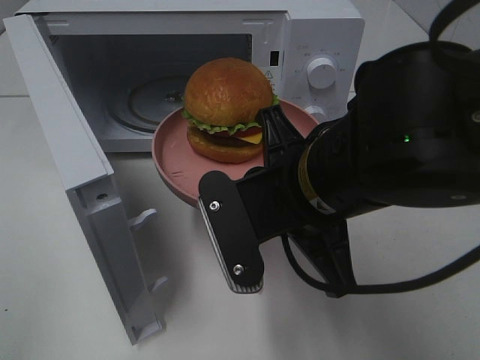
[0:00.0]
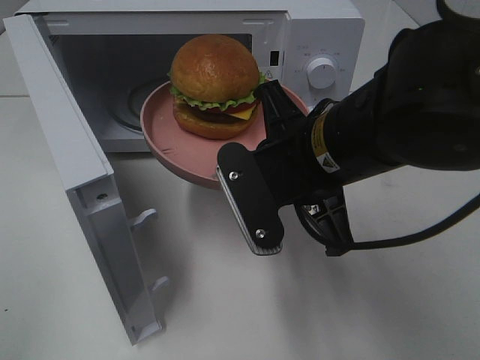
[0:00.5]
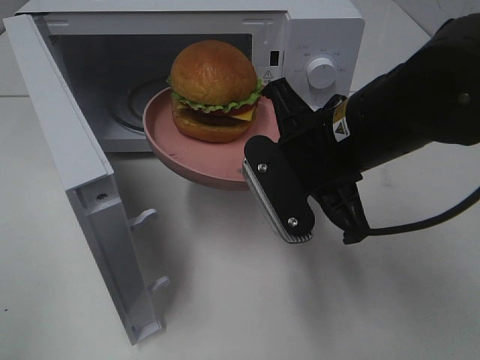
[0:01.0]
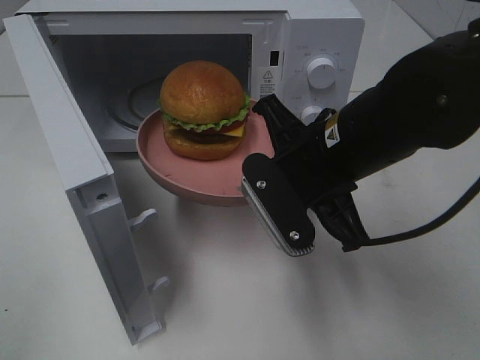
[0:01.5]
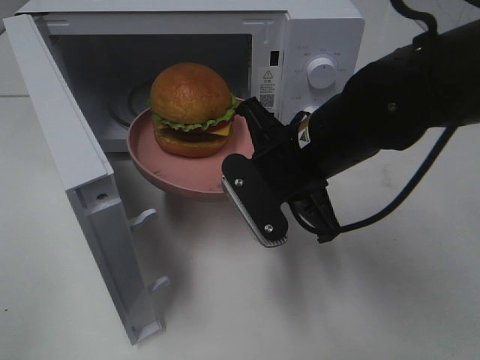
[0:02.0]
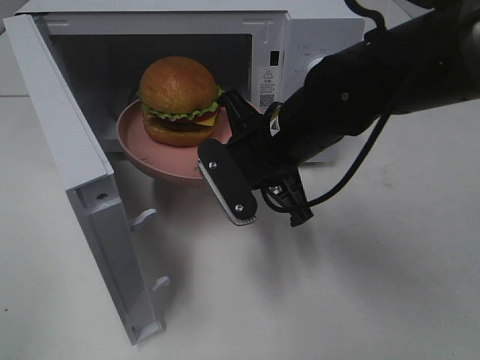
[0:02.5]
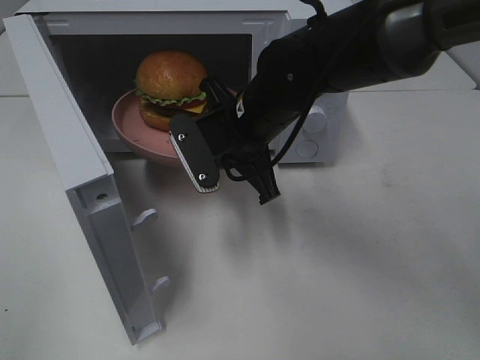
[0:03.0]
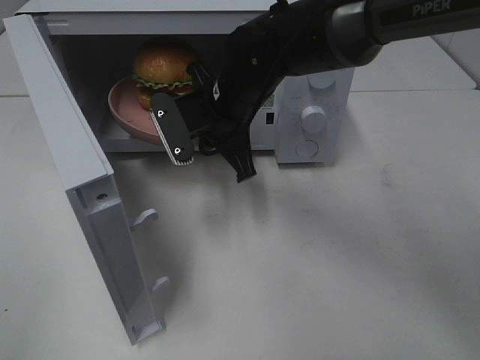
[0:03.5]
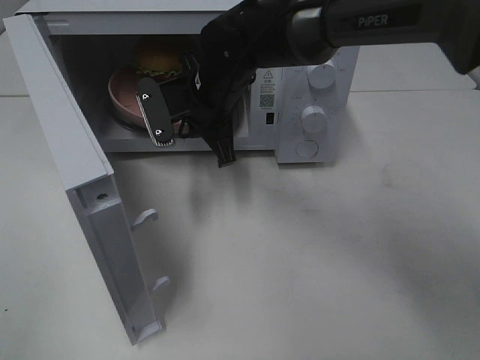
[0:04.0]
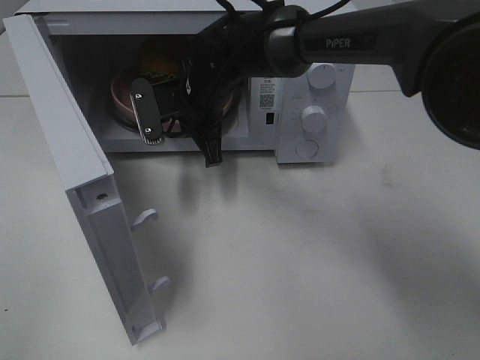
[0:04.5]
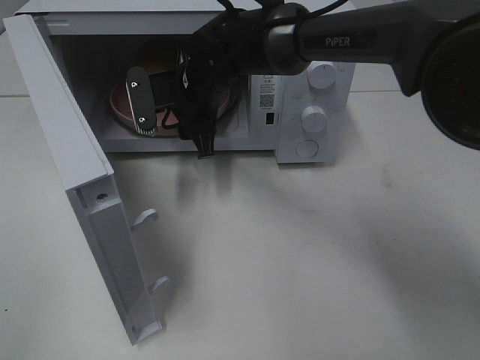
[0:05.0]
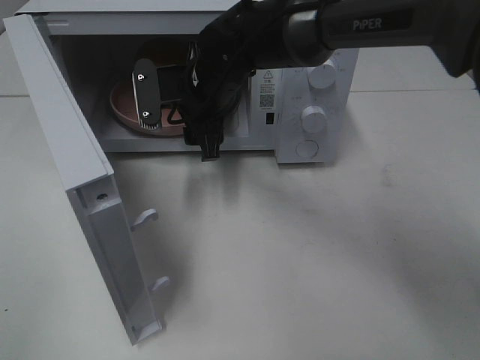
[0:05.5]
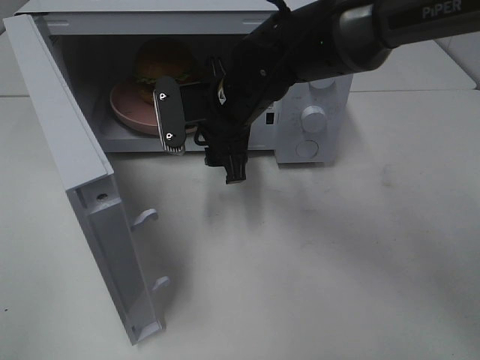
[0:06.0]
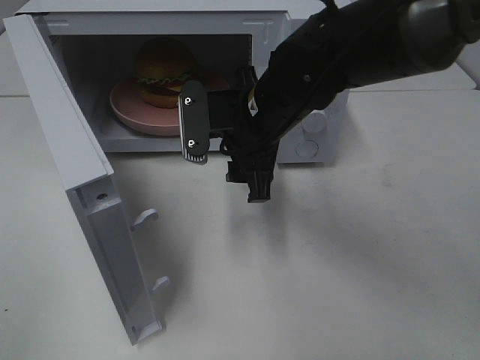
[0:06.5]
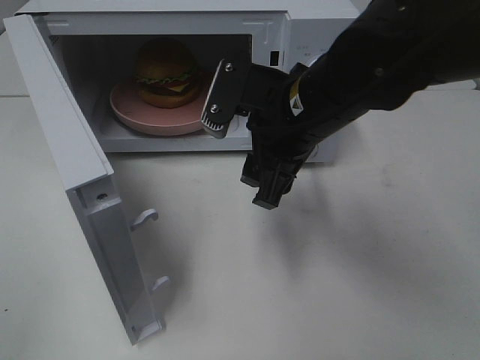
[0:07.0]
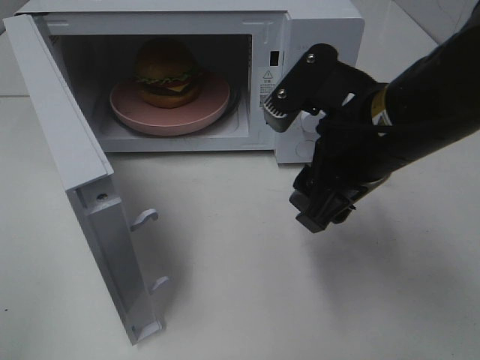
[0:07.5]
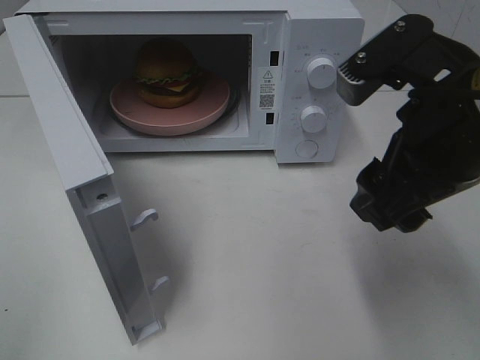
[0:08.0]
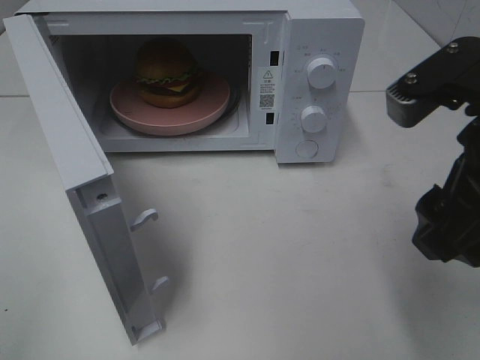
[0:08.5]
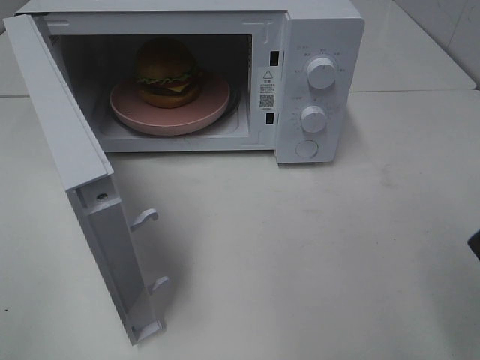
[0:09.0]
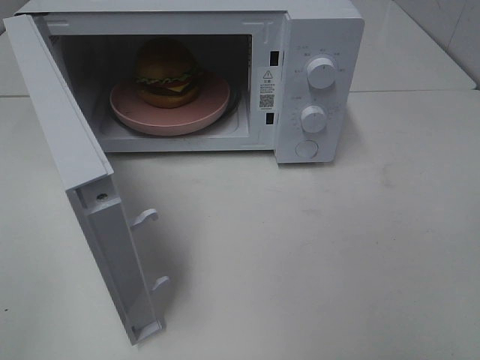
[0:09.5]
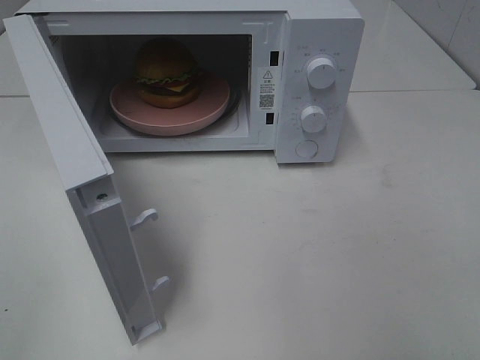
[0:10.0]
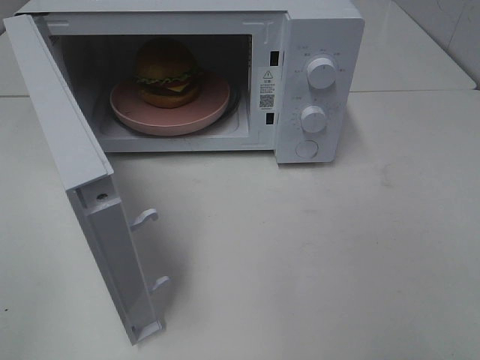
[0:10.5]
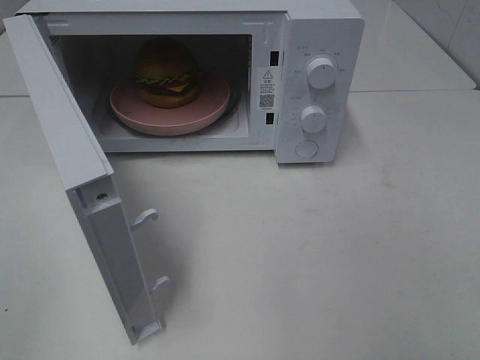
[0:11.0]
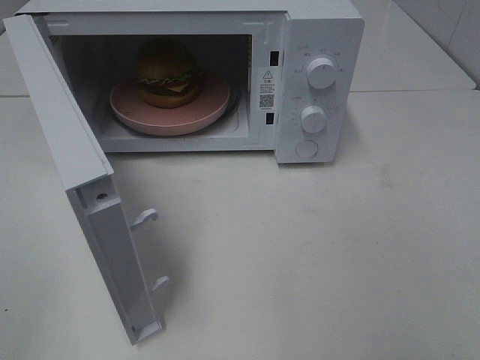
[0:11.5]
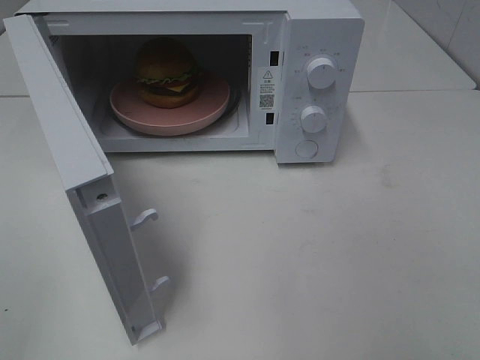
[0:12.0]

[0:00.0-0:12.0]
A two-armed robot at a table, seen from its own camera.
Task of the whole recording: Heat the burger.
Step, 0:00.0 to 0:05.0: Right hand: place the plate in the microwave.
0:00.0 to 0:02.0: The right gripper heads forward, covering some 10 cm.
0:02.0 to 0:04.0: The right gripper is displaced forward and to the left by approximately 15 cm.
0:04.0 to 0:06.0: The right gripper opens.
0:06.0 to 0:08.0: The right gripper travels backward, to the right and upward by roughly 25 cm.
0:08.0 to 0:10.0: The right gripper travels backward and to the right by roughly 20 cm.

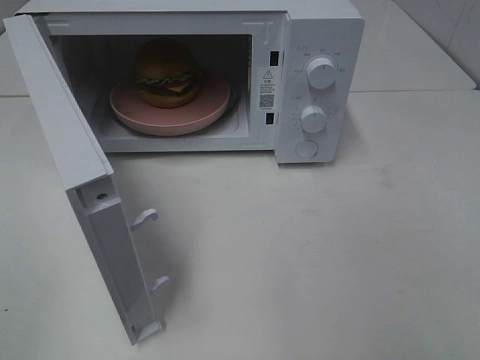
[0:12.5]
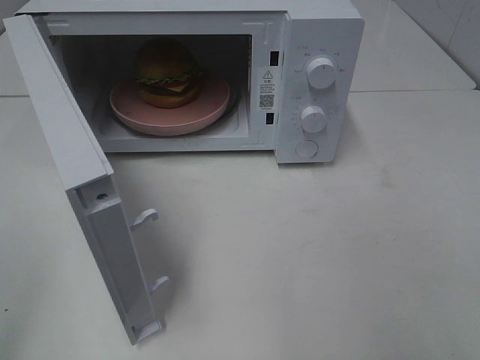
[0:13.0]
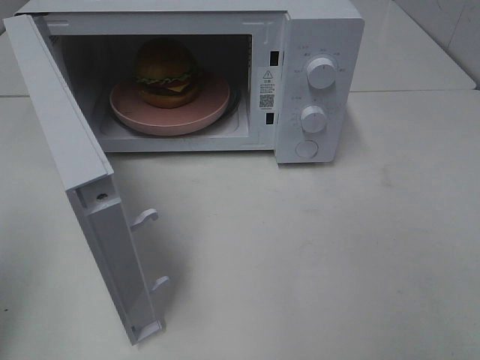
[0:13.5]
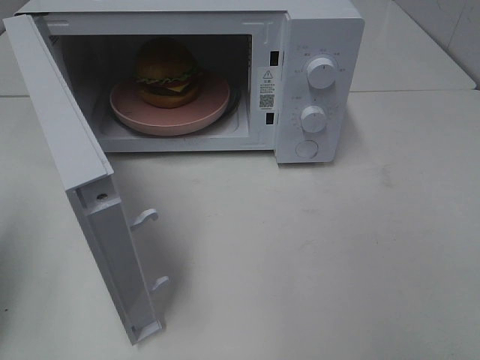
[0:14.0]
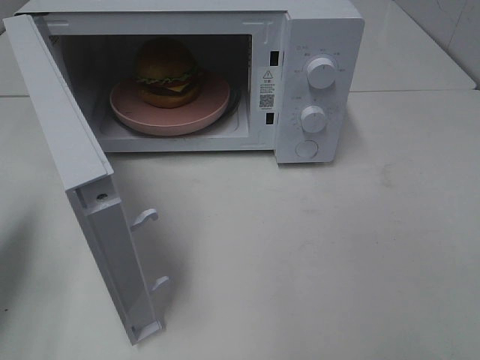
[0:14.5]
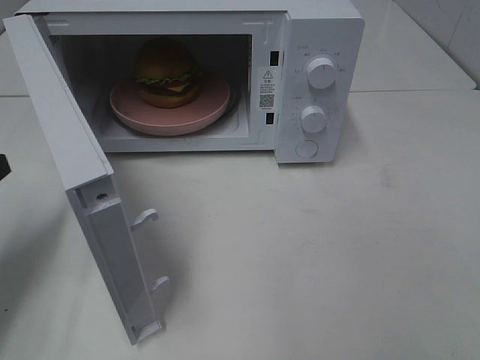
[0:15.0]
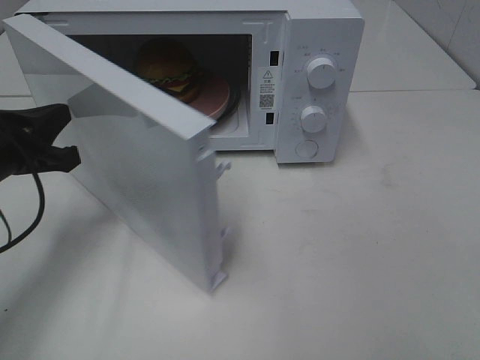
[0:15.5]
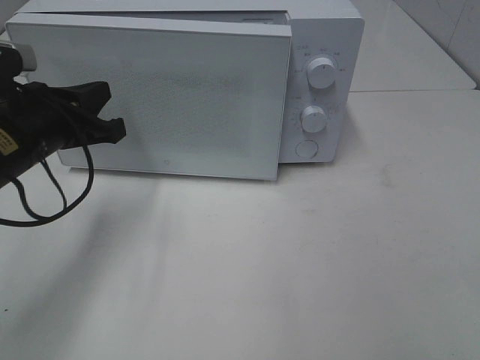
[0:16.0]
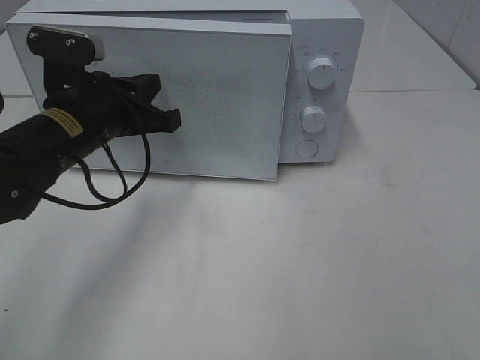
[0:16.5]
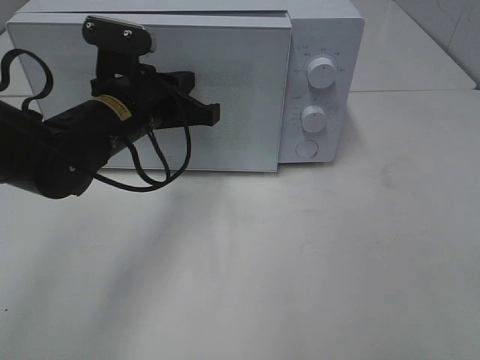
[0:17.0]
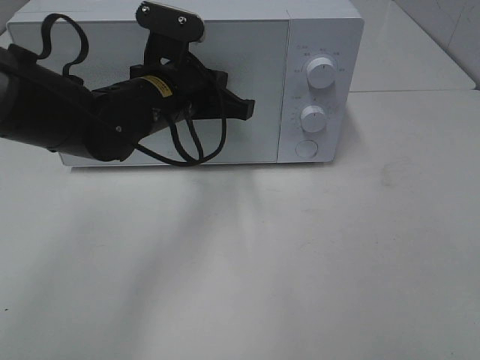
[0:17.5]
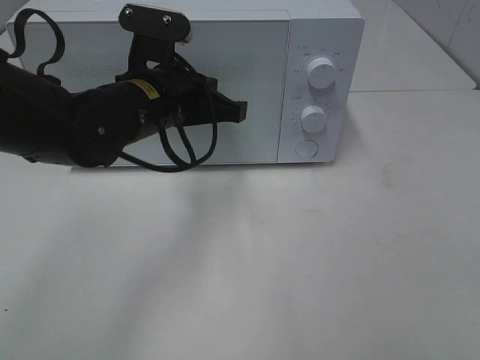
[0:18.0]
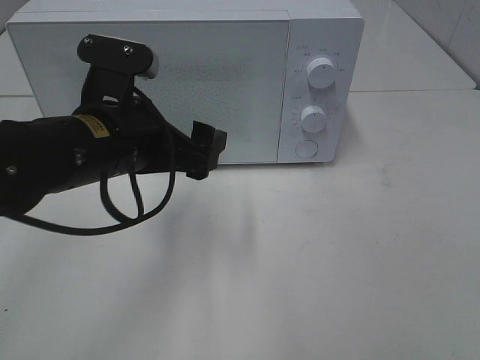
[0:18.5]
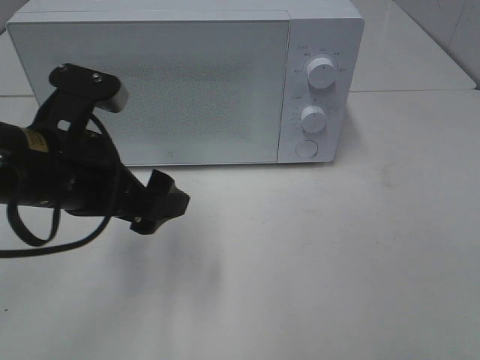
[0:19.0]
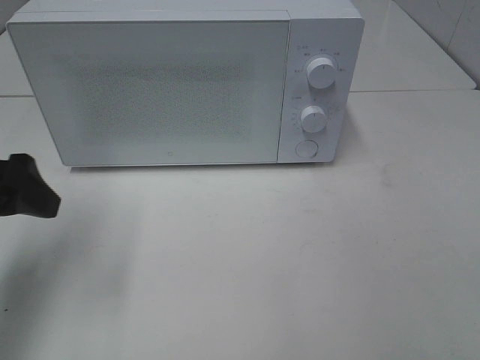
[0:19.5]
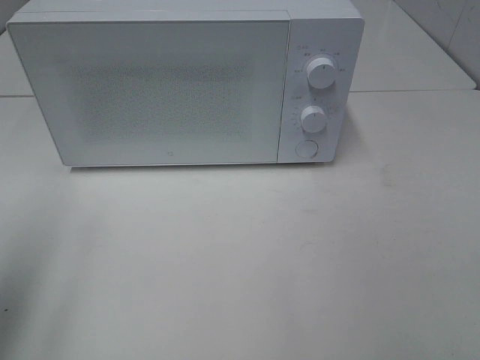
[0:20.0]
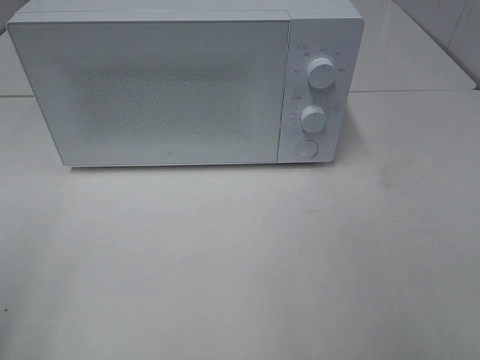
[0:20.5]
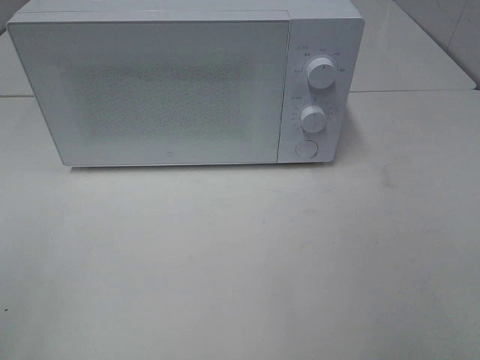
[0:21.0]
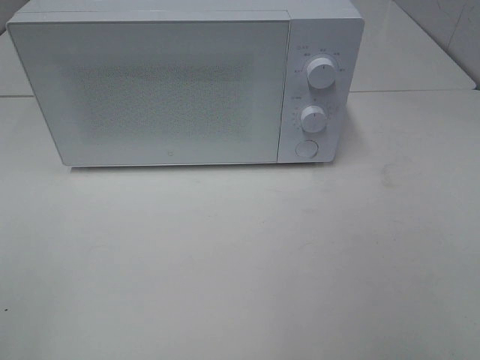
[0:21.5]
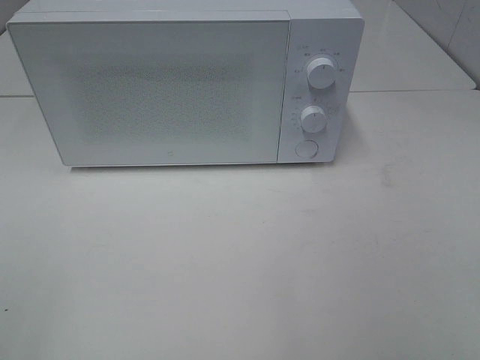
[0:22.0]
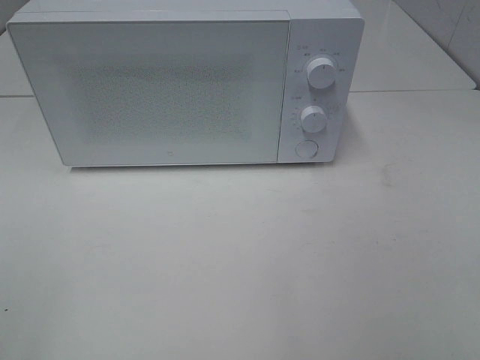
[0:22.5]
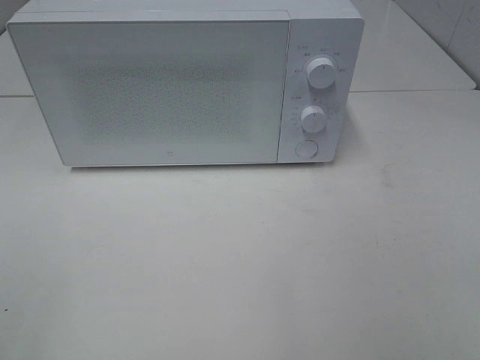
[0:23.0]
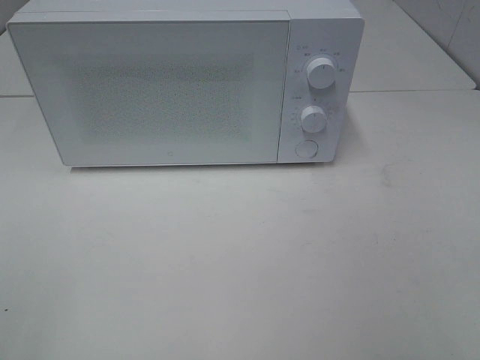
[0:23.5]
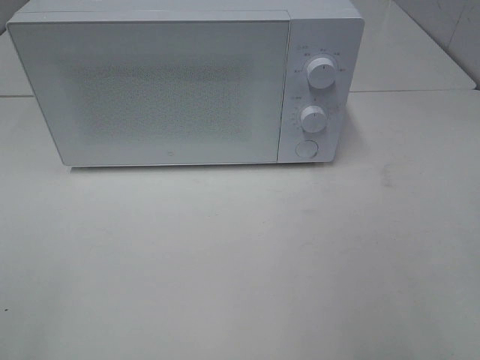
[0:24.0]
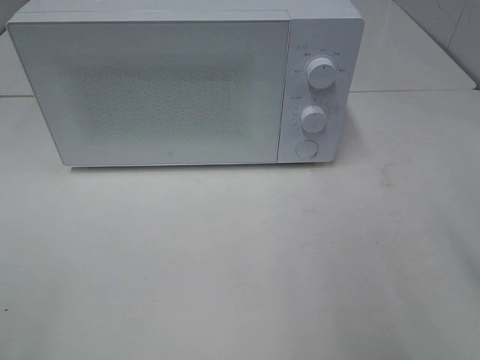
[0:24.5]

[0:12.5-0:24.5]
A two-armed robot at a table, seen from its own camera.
Task of the whole recording: Heat the burger.
Step, 0:12.5 to 0:18.0: Left hand: close the microwave door.
0:12.5 to 0:14.5: The left gripper goes some 20 cm forward, and closes up.
0:14.5 to 0:16.5: The left gripper travels to the right and forward by approximately 20 cm.
0:16.5 to 0:18.5: The left gripper is displaced backward by some 5 cm, and opens up.
0:18.5 to 0:20.5: The left gripper moves to the left and backward, approximately 25 cm.

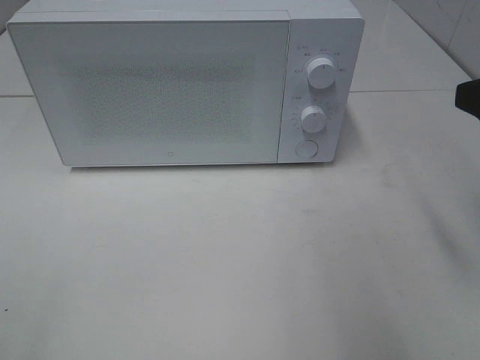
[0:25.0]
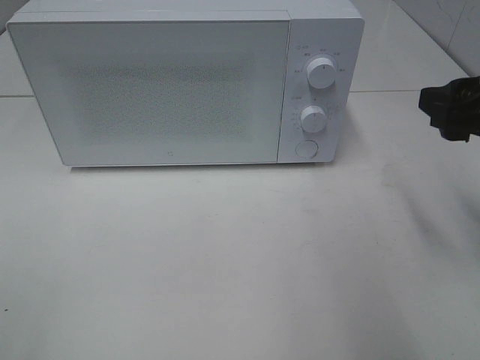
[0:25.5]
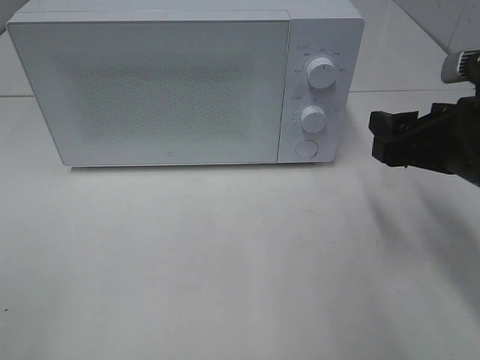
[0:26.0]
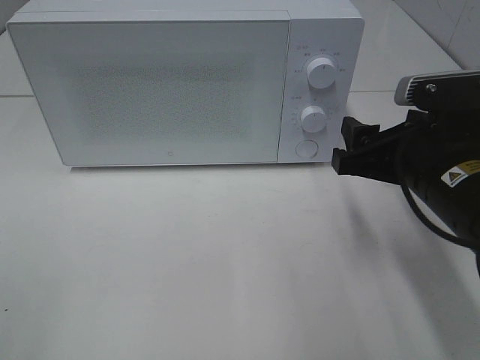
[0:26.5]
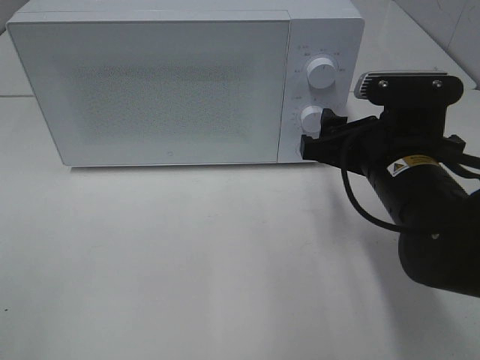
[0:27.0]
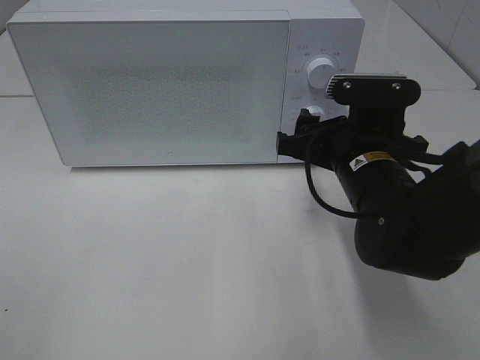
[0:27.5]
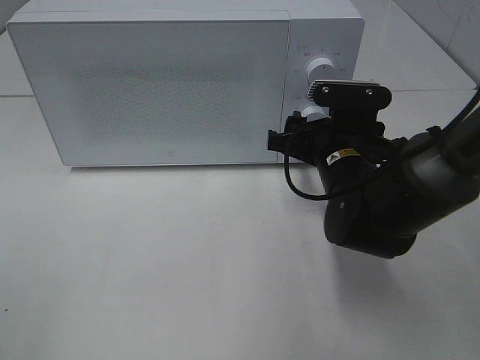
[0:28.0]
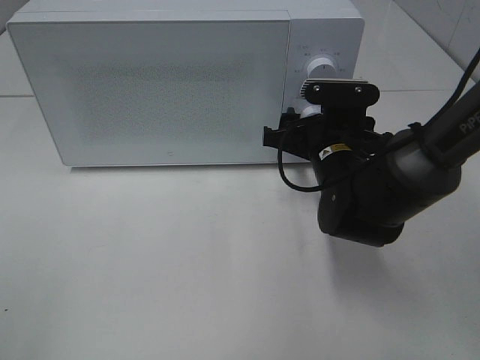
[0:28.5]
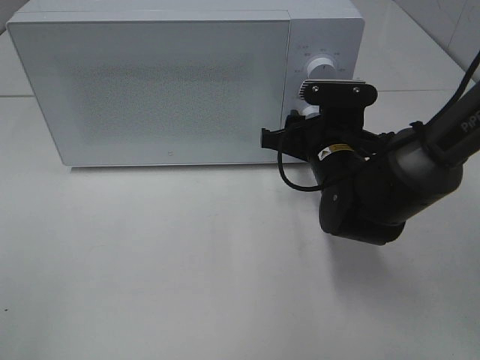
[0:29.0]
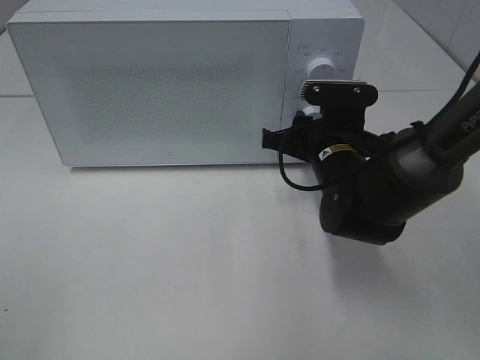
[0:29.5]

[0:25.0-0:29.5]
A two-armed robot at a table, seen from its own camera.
Task of the whole recording: Heat the burger.
0:25.0 to 0:27.0: The right gripper travels downward, to the left and forward by approximately 15 cm.
0:27.0 to 0:29.5: The right gripper travels forward and downward by some 10 cm, and closes its fingers.
